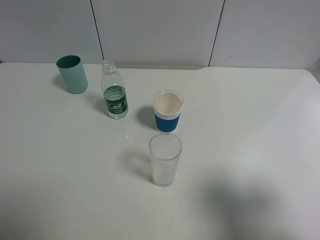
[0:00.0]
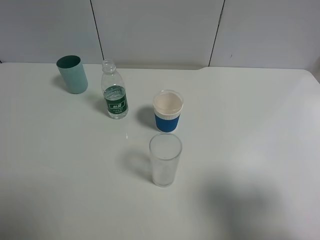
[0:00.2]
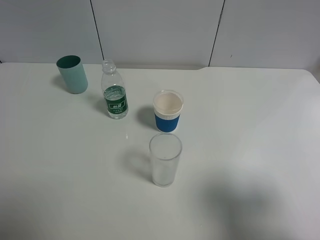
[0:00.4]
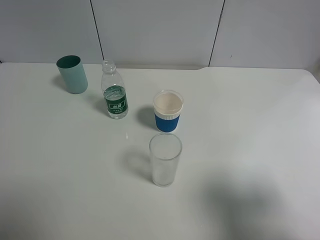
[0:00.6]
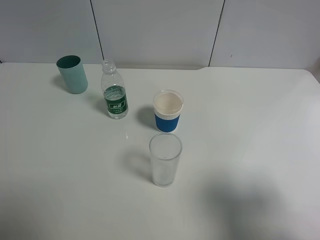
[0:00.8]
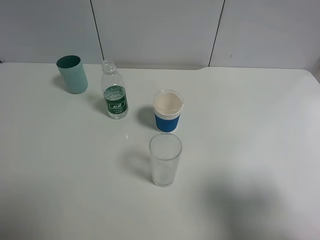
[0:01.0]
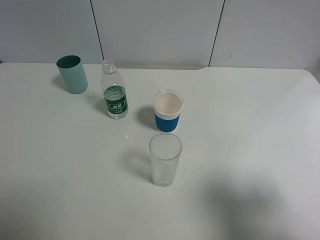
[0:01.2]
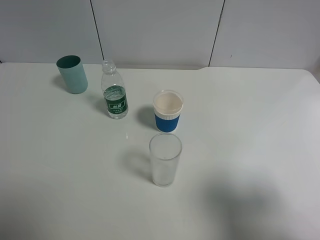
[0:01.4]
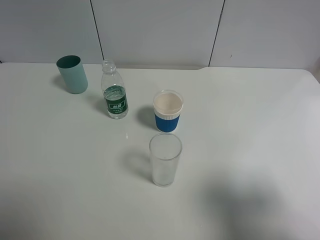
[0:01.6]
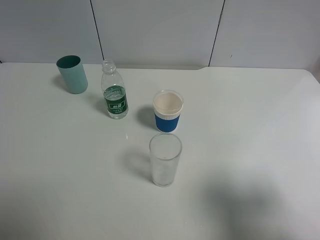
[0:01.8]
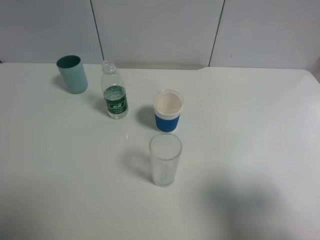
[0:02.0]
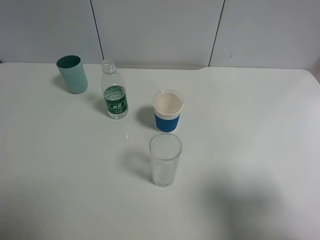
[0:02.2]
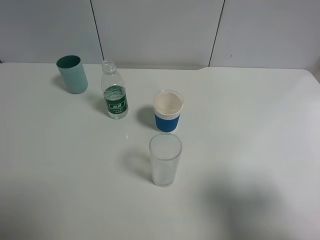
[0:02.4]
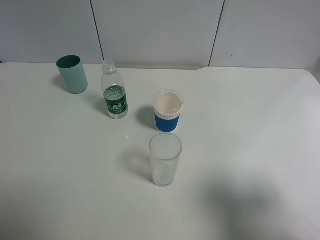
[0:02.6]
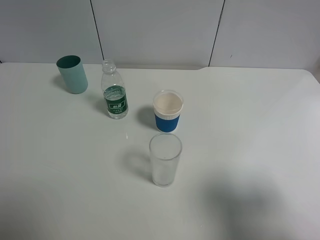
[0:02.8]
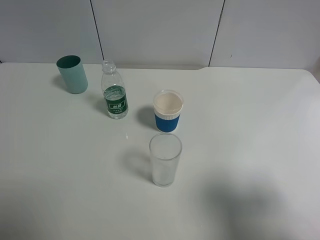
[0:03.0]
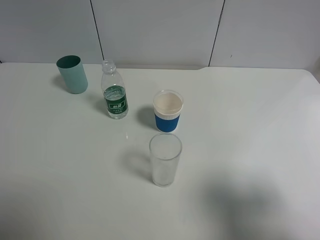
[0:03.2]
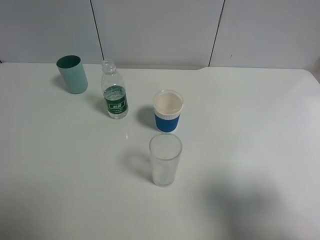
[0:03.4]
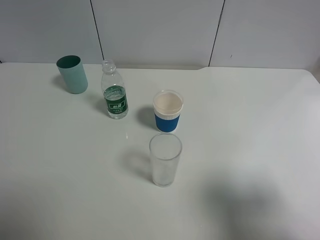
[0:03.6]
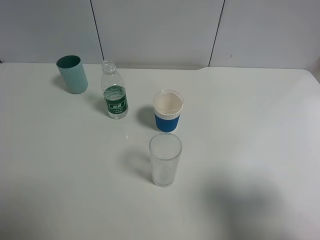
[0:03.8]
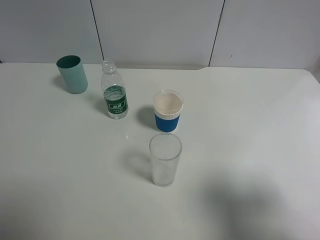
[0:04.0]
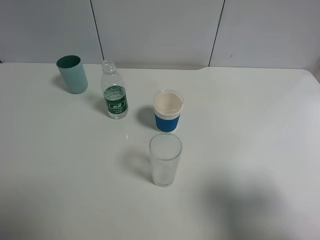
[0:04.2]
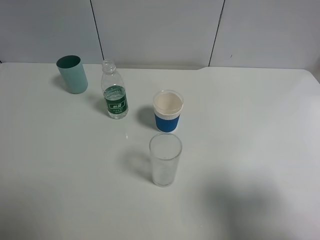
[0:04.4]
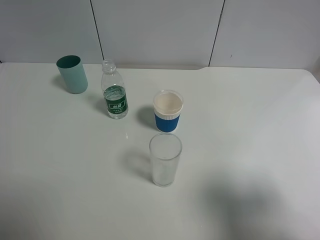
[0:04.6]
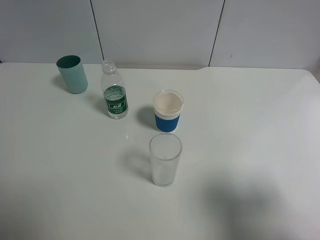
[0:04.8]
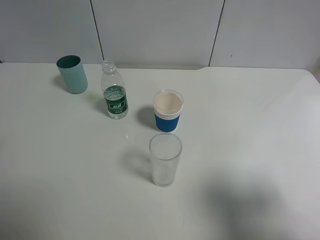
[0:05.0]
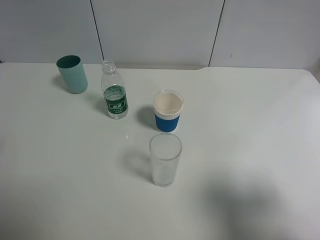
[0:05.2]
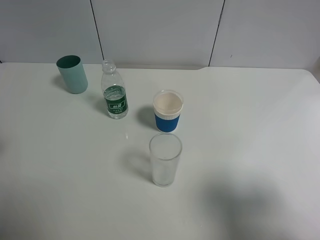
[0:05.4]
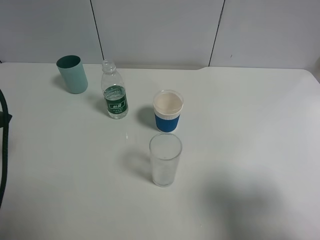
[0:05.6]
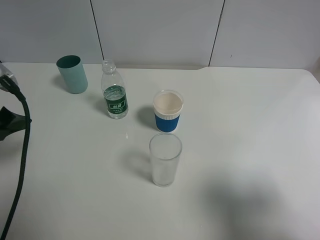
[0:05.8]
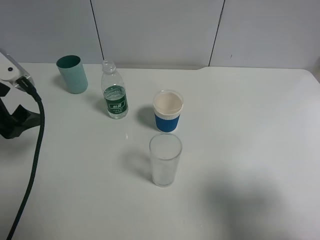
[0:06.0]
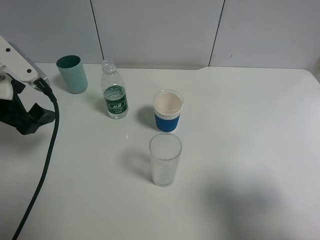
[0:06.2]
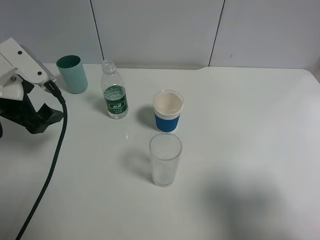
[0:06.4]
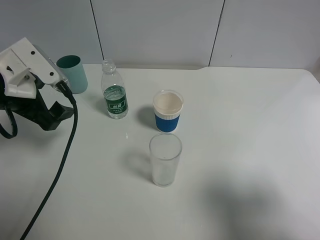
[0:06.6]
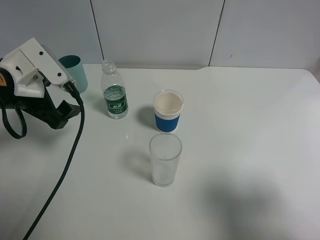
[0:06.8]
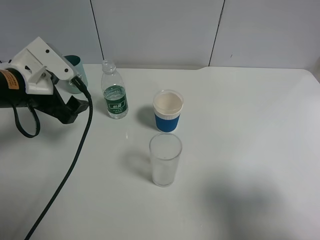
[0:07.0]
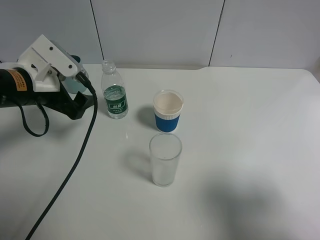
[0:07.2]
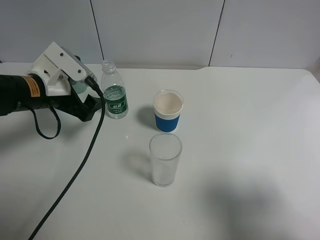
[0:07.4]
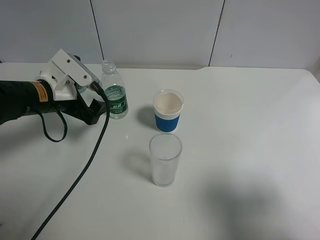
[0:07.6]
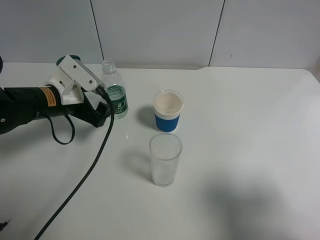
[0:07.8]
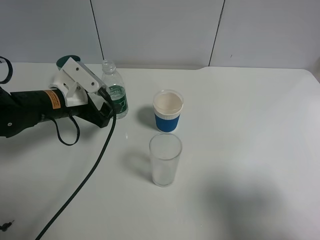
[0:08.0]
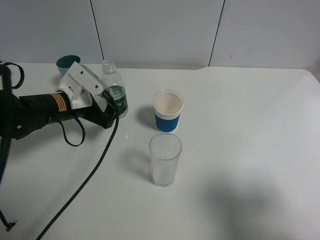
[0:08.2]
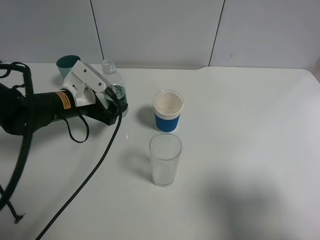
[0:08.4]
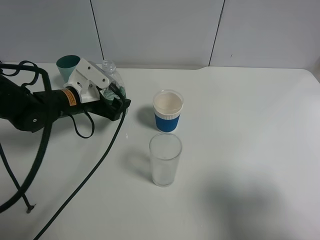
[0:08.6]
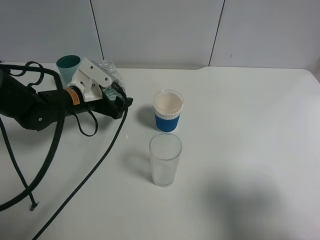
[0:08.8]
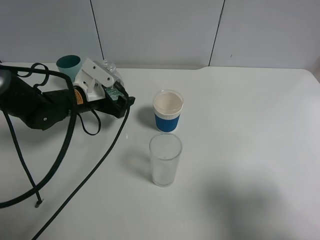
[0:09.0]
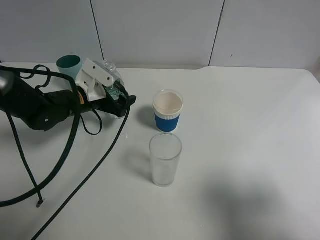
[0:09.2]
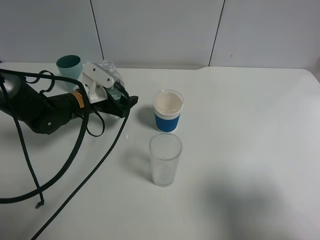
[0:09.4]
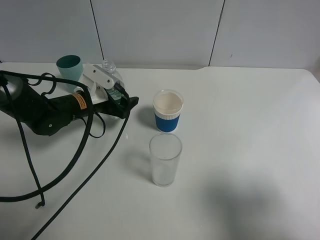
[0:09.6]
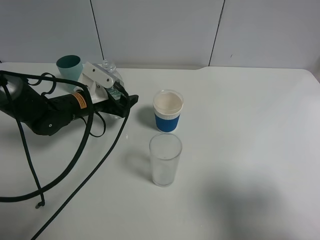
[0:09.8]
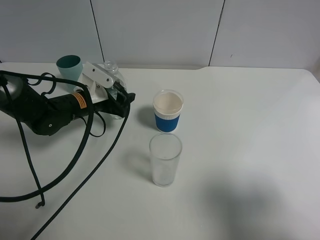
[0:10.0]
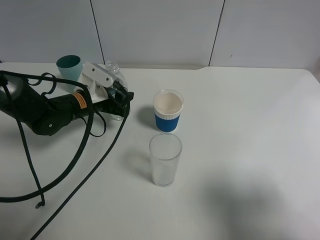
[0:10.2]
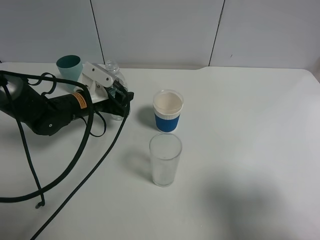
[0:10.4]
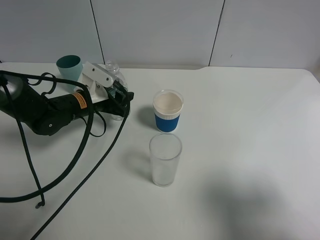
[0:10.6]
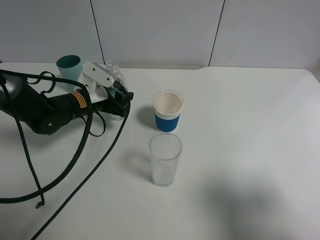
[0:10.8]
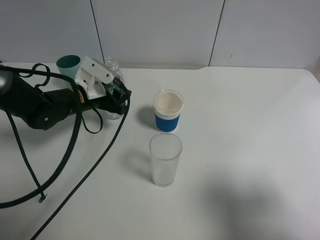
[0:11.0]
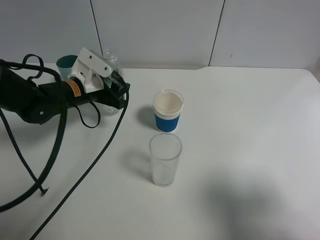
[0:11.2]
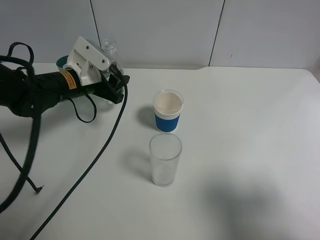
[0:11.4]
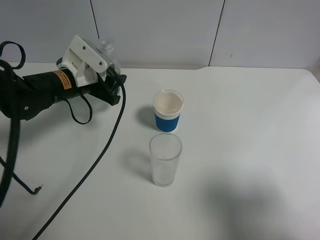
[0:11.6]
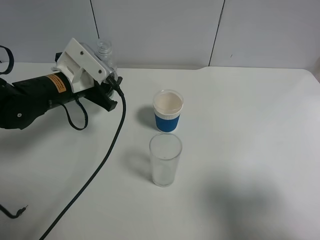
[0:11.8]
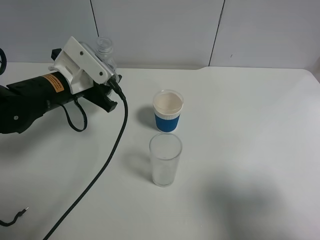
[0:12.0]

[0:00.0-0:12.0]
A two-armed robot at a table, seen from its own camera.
Task of the whole recording: use a gripper to hold the bottle of the drink and pour it into a random cup.
Step, 0:00.0 to 0:10.2: Grasp the mineral water bottle with the left gripper.
0:00.0 to 0:03.0: Both grippers stay about where they are.
0:04.4 to 0:06.0: The left gripper goes about 15 cm forward and downward.
0:06.0 to 0:07.6: The left gripper heads downward, forward and to the right, covering about 15 cm.
0:07.6 to 0:09.0: The left gripper shifts some 10 cm forward and downward.
0:09.0 to 0:10.4: The left gripper closes up.
0:10.4 to 0:12.0: The left gripper travels upward and backward by some 10 cm.

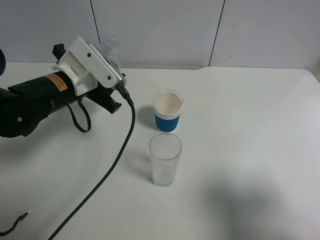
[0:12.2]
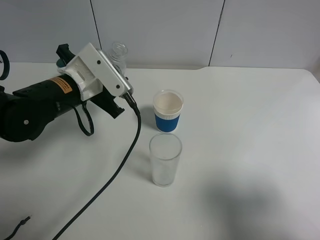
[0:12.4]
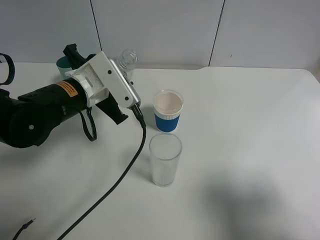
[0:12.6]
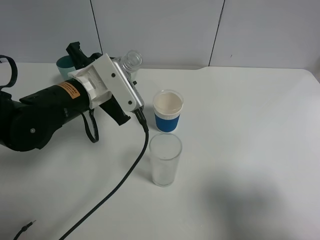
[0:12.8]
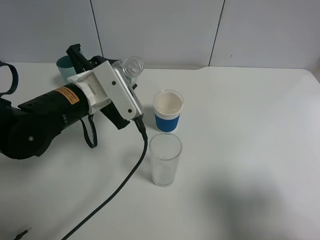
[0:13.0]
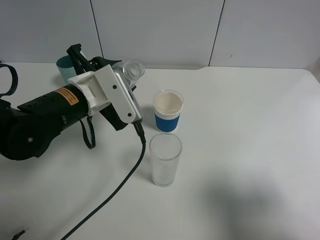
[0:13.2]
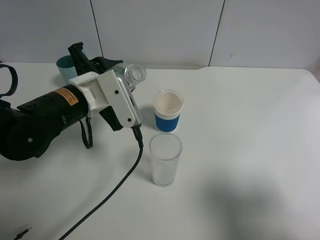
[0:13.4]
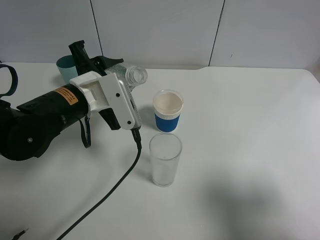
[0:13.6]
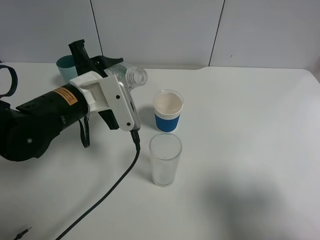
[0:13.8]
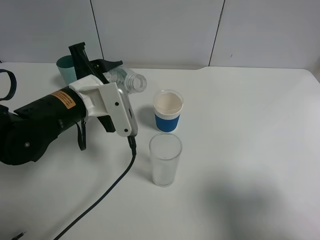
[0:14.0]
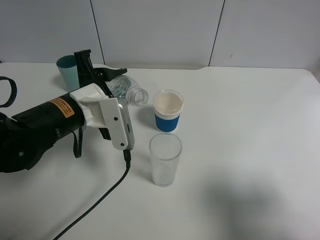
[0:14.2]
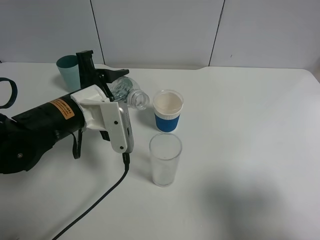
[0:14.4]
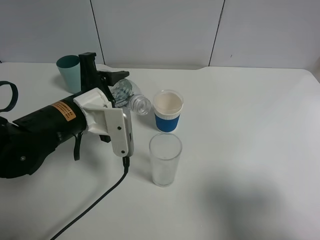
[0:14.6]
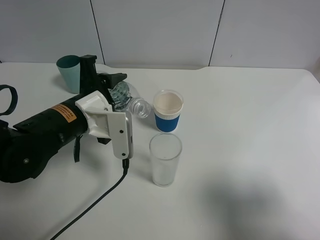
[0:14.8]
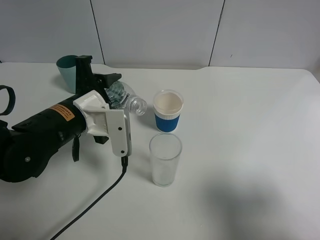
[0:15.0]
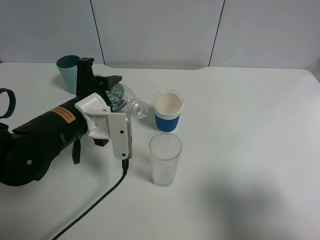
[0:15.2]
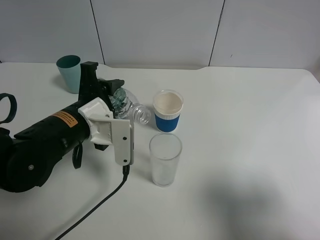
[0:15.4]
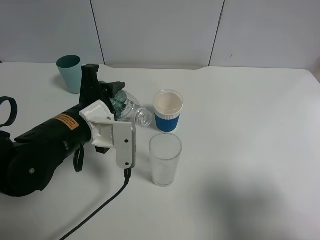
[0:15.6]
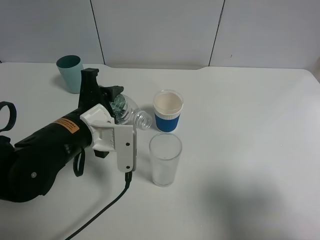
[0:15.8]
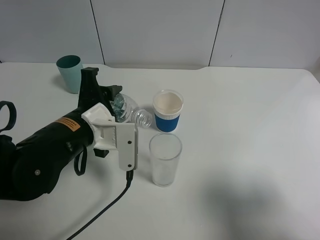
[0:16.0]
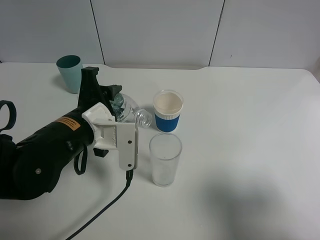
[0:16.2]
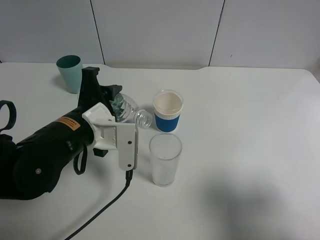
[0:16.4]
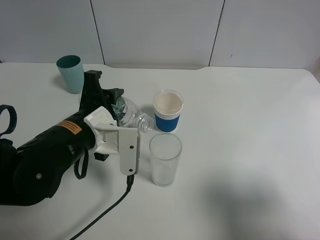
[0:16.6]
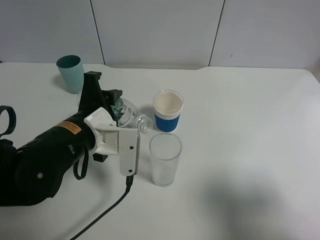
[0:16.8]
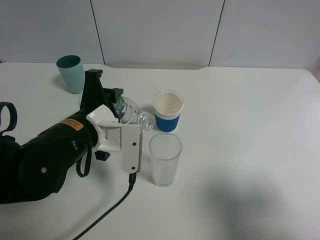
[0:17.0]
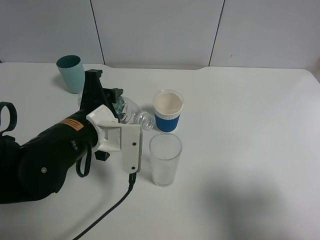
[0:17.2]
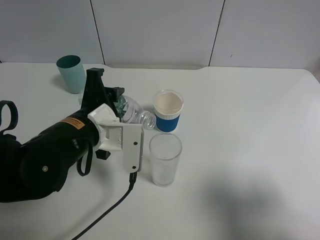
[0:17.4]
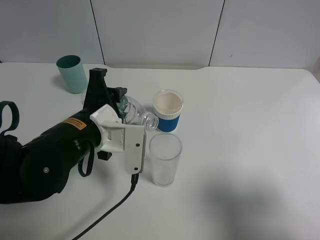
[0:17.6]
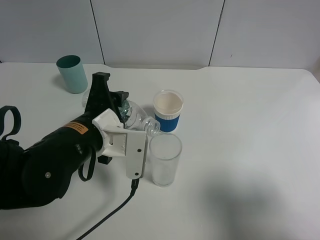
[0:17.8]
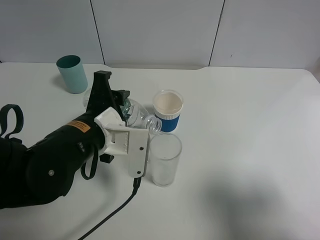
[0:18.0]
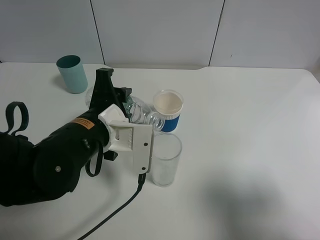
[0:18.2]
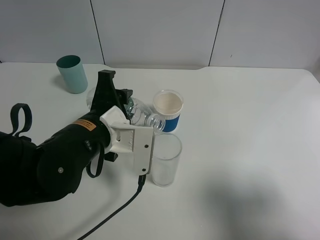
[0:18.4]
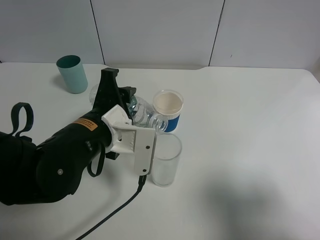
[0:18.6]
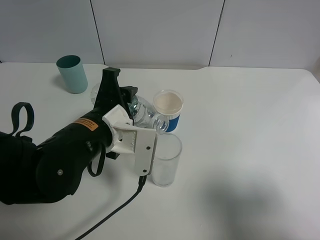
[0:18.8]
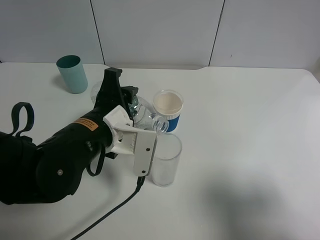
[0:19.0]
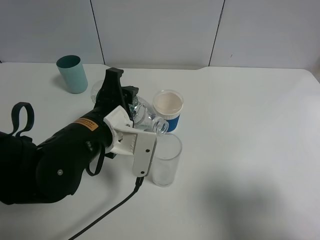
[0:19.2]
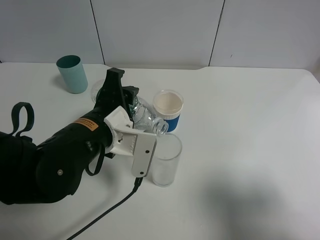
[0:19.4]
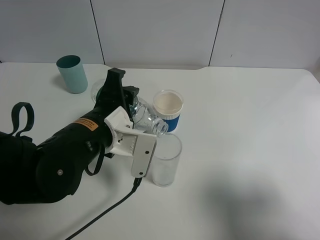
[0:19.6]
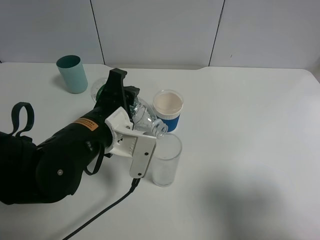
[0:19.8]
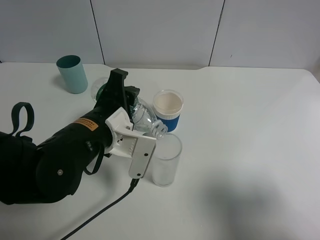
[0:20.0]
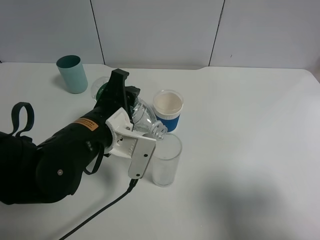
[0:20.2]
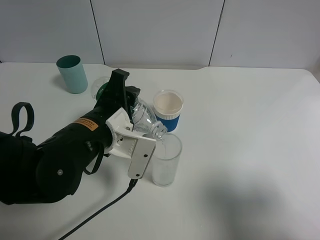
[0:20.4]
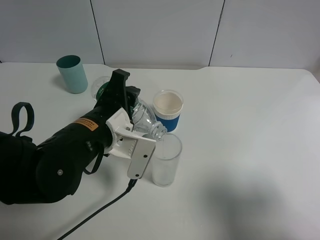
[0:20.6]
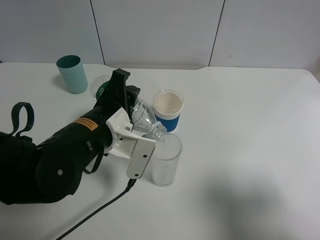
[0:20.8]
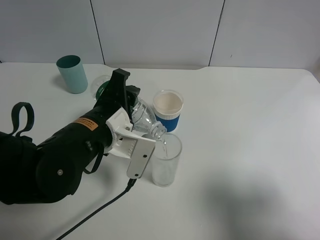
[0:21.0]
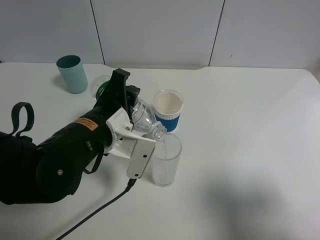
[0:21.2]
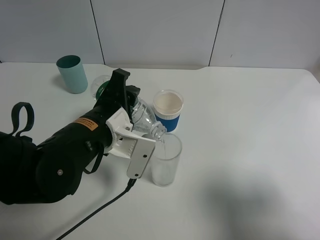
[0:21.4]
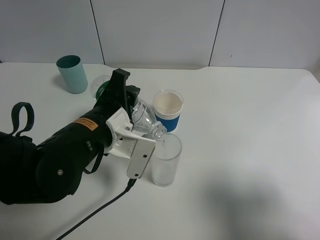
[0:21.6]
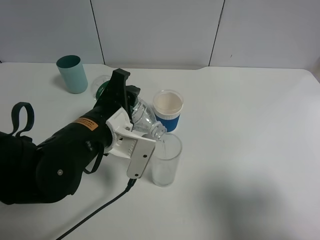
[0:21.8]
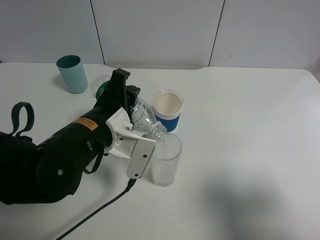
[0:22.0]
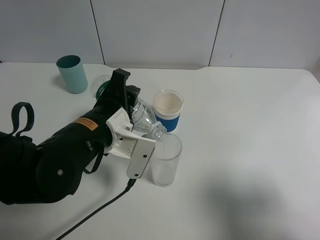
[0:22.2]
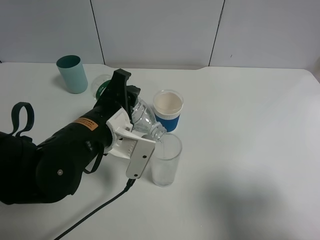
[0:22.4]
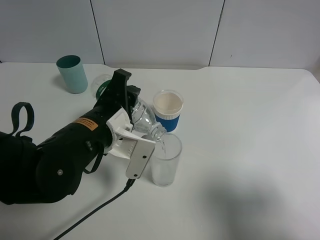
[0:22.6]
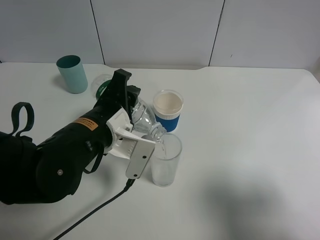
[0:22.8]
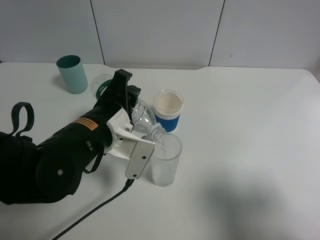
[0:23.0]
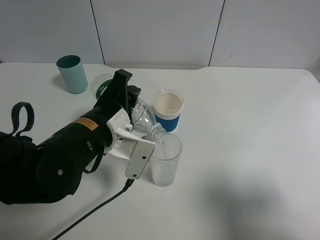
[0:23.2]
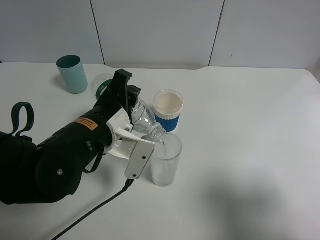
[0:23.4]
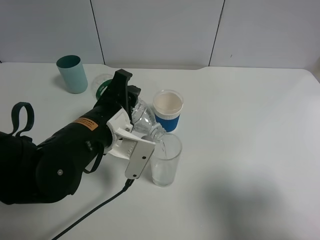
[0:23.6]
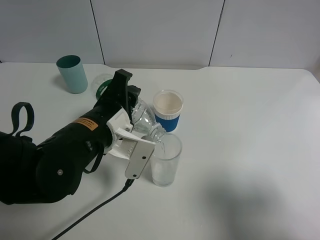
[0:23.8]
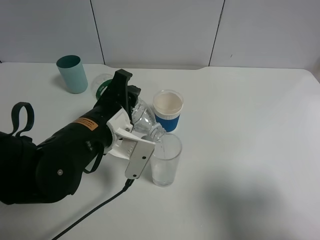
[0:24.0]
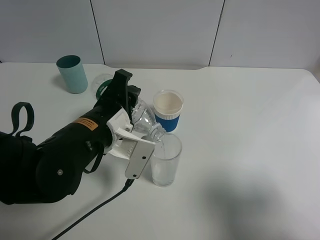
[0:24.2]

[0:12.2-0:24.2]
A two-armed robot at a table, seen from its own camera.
Task of the whole recording: use a gripper to hold the bottle of the drink and pour it into a random cup.
0:15.2 to 0:19.8: There are only small adjustments of the grippers.
0:19.8 to 0:21.2: Both grippers stay put.
0:21.2 to 0:24.2: Both grippers stay about where they are.
